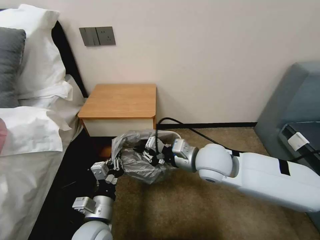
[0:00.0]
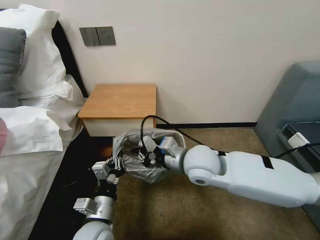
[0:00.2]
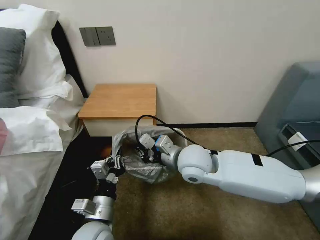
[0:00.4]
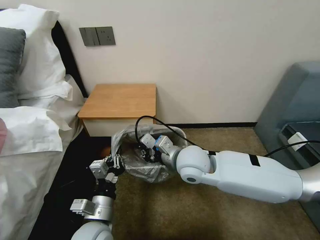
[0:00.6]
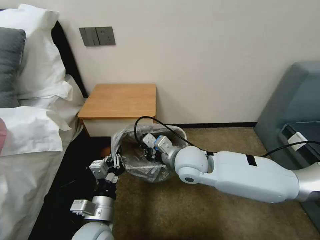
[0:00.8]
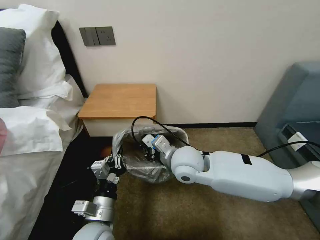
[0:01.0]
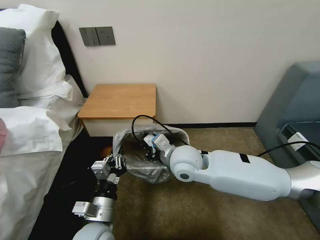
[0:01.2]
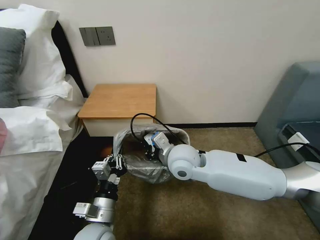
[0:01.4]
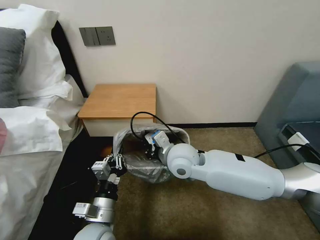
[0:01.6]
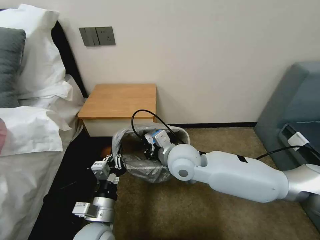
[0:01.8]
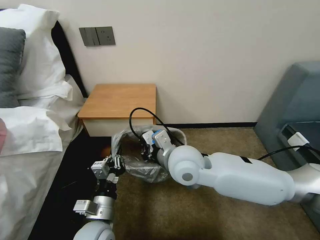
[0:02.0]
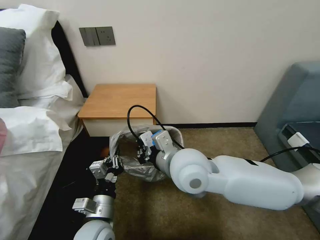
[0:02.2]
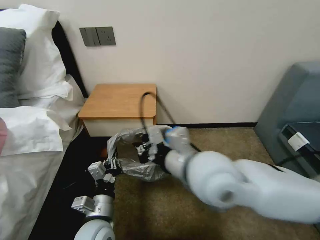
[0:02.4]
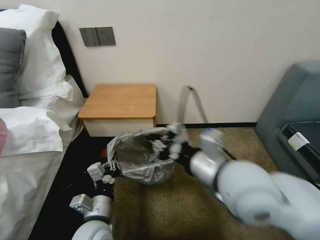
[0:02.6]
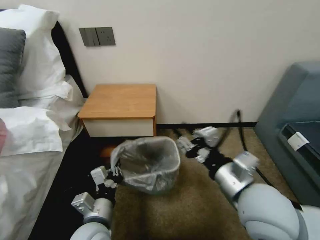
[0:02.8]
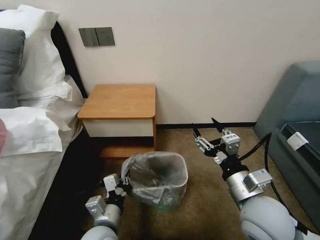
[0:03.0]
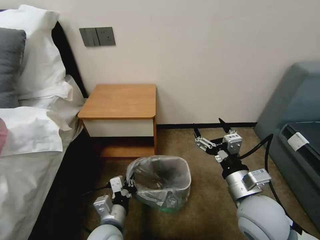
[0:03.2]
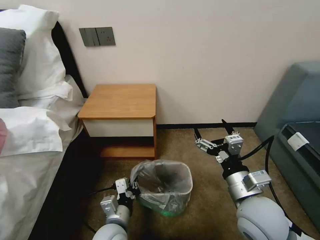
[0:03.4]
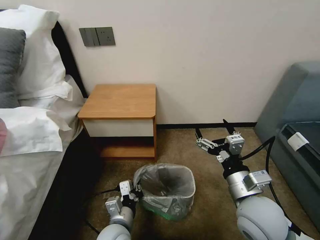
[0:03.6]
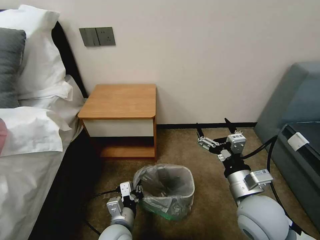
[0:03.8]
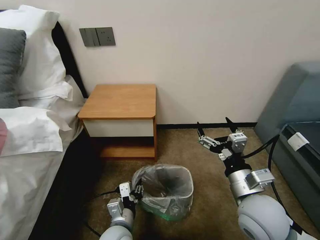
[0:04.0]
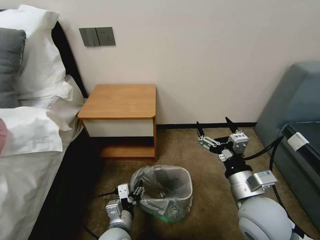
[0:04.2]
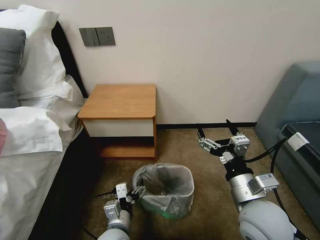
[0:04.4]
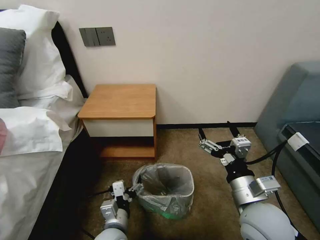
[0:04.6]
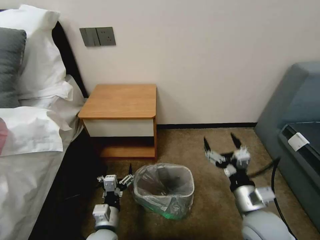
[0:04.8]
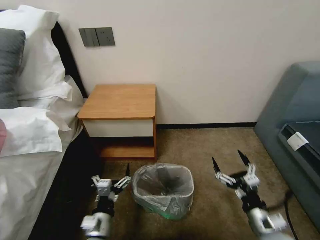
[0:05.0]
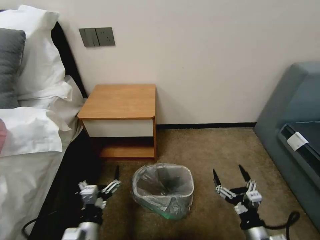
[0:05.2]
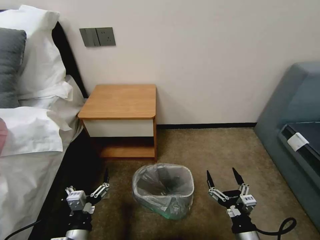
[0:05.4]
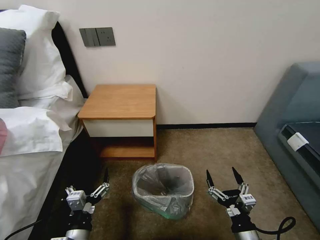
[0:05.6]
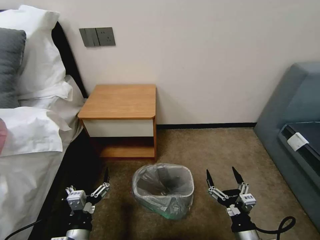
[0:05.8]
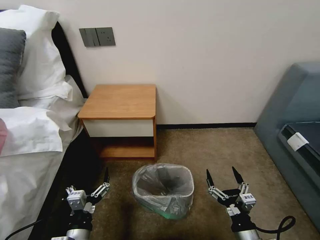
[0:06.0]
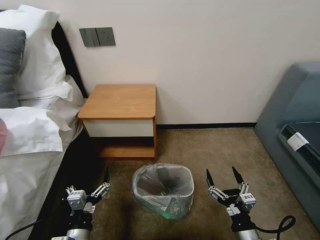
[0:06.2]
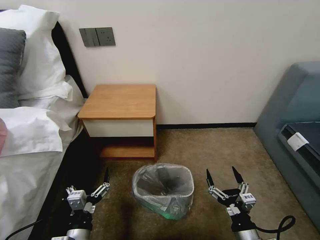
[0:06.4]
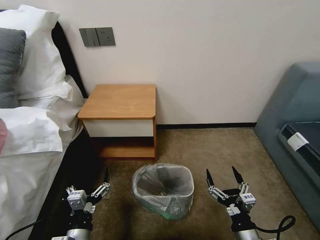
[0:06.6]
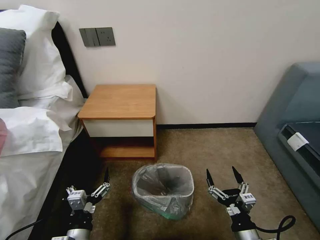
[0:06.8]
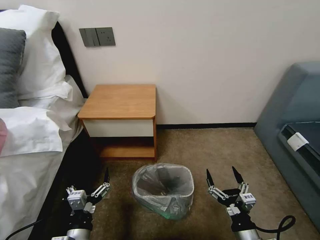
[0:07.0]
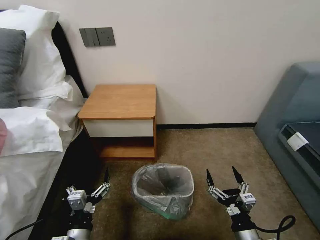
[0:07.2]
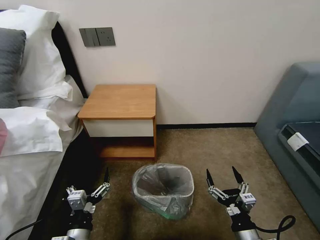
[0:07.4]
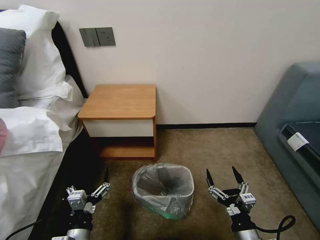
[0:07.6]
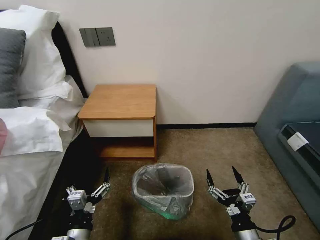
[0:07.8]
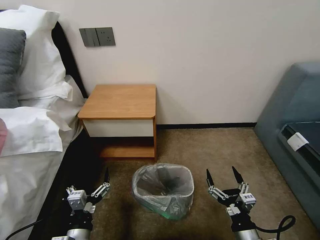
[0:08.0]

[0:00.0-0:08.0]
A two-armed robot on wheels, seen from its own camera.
Task of the whole recording: Pick up the garbage bag from the table and place it over the trash can.
0:00.0 to 0:01.6: The right gripper heads to the left, covering some 5 cm.
0:01.6 to 0:03.2: The right gripper shifts approximately 20 cm to the right and backward, and opens up.
0:03.2 to 0:04.8: The left gripper opens, while the right gripper heads downward, covering approximately 5 cm.
0:04.8 to 0:06.4: The right gripper is displaced downward and backward by about 15 cm; the left gripper moves backward and to the left, some 10 cm.
0:06.4 to 0:08.0: Both grippers stay put.

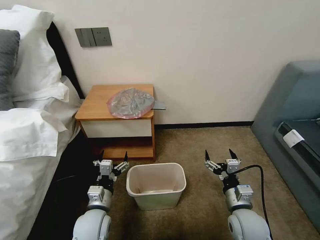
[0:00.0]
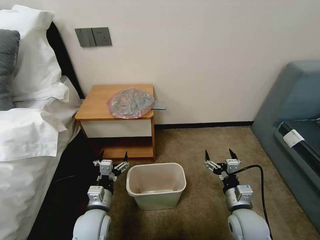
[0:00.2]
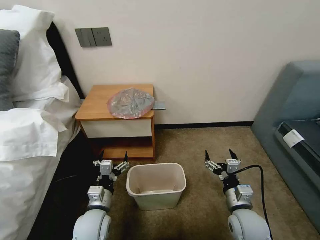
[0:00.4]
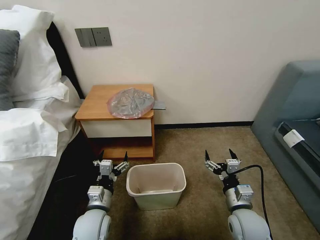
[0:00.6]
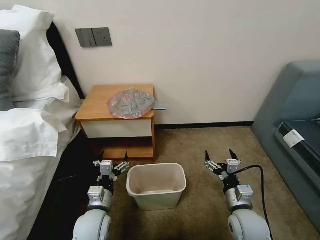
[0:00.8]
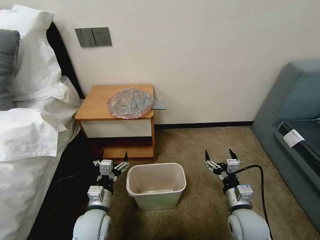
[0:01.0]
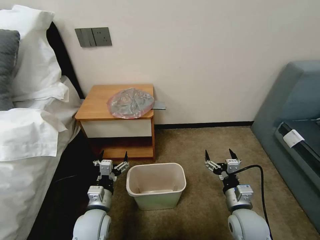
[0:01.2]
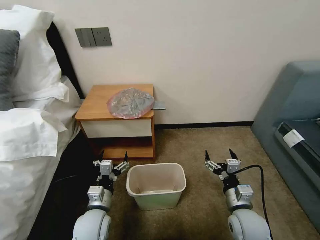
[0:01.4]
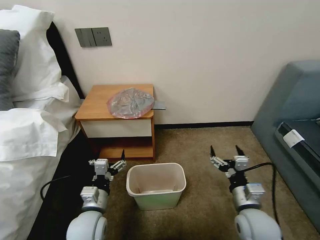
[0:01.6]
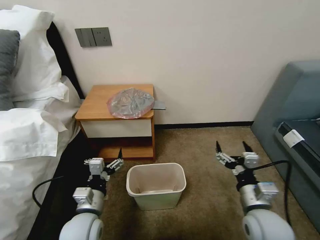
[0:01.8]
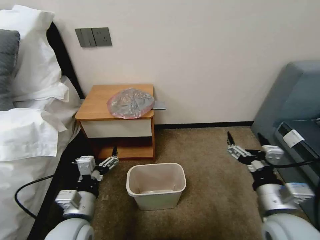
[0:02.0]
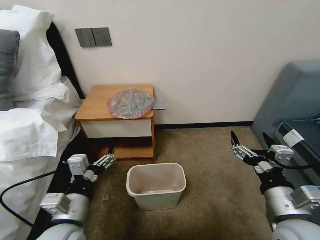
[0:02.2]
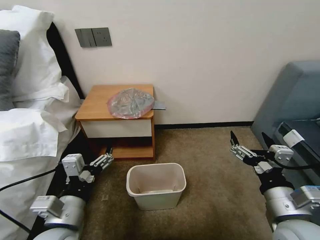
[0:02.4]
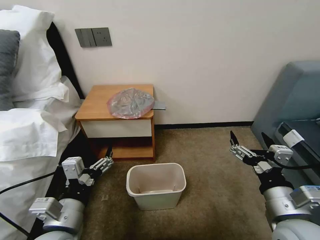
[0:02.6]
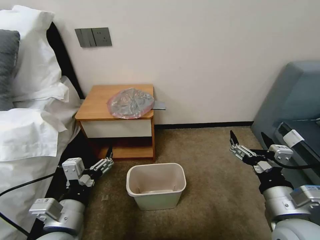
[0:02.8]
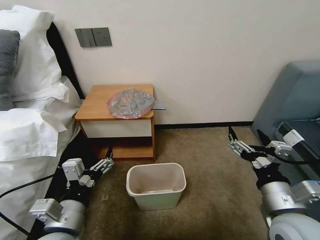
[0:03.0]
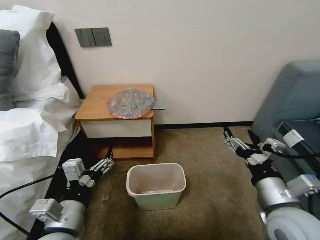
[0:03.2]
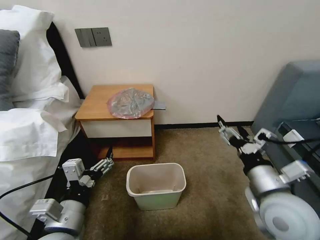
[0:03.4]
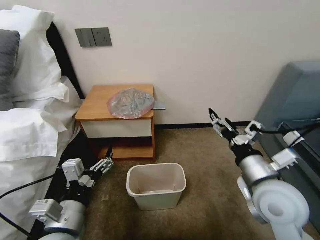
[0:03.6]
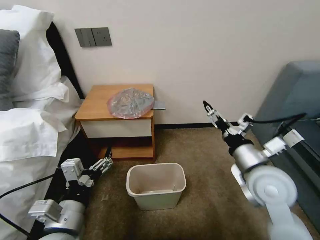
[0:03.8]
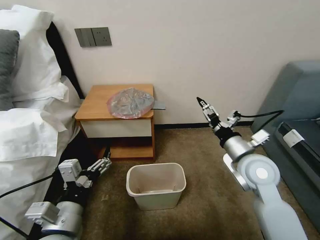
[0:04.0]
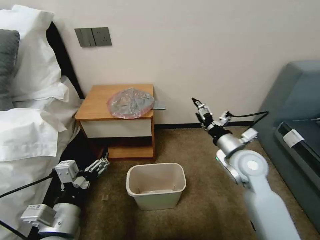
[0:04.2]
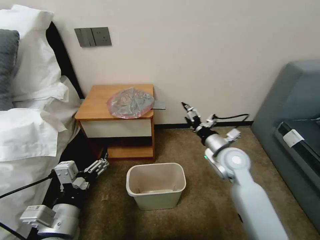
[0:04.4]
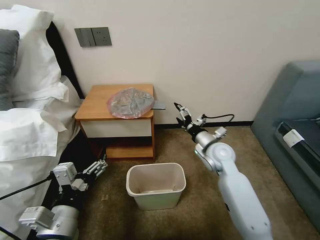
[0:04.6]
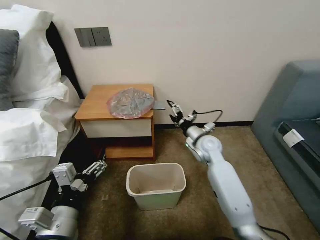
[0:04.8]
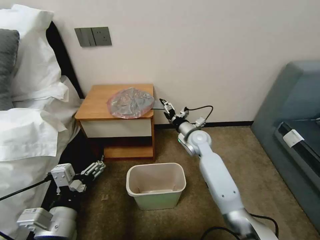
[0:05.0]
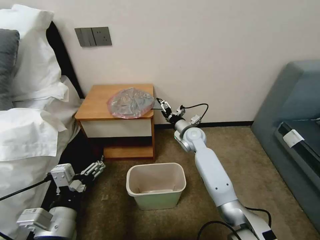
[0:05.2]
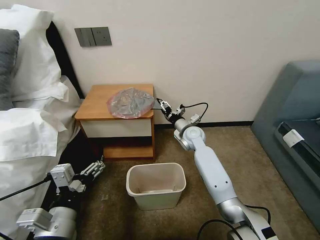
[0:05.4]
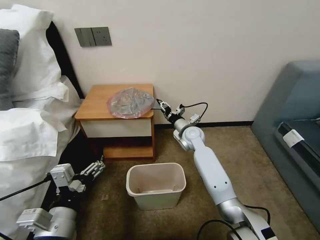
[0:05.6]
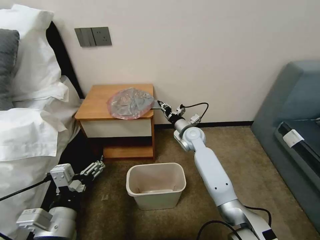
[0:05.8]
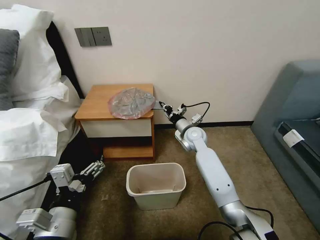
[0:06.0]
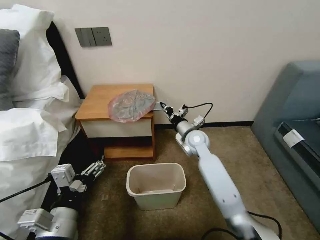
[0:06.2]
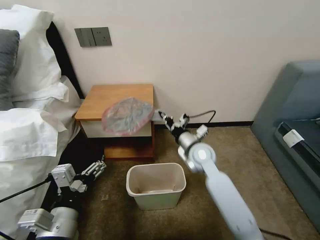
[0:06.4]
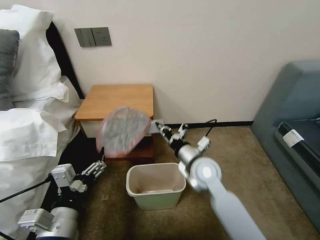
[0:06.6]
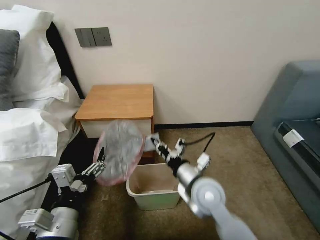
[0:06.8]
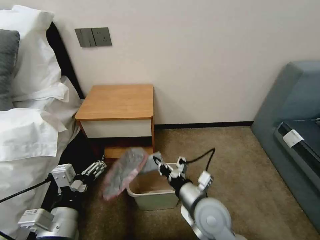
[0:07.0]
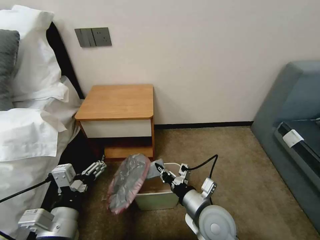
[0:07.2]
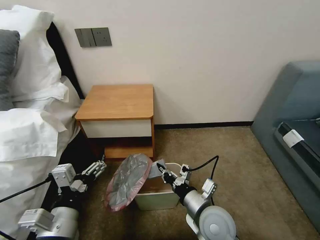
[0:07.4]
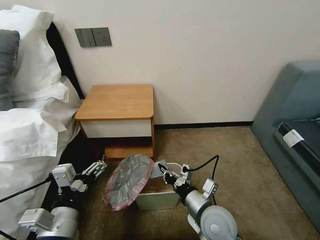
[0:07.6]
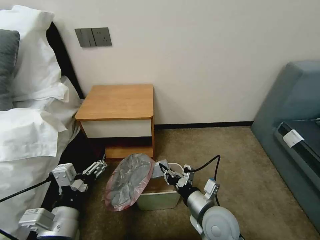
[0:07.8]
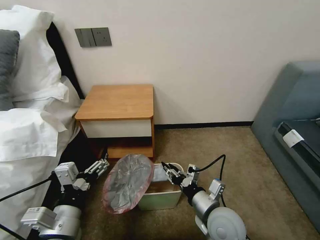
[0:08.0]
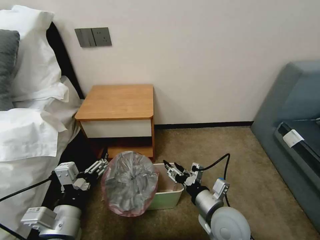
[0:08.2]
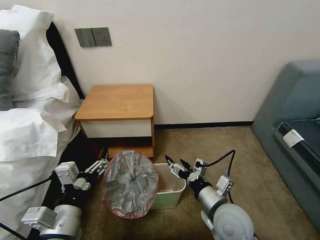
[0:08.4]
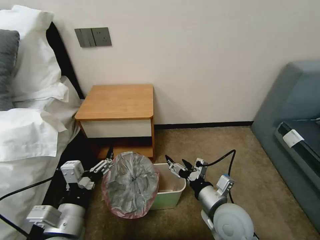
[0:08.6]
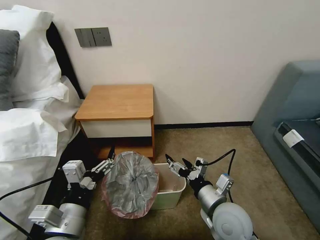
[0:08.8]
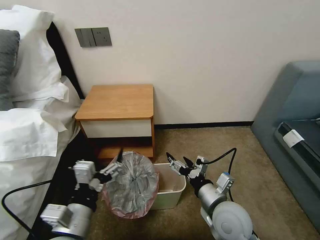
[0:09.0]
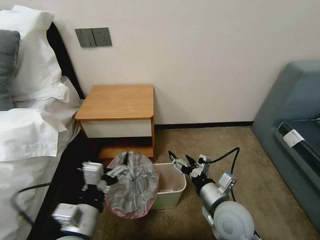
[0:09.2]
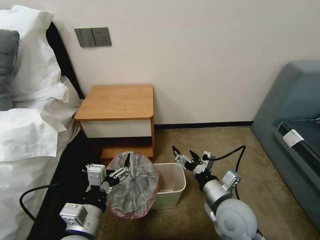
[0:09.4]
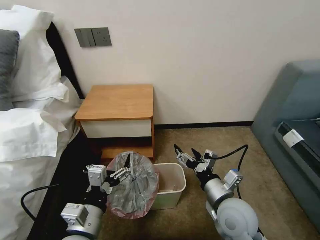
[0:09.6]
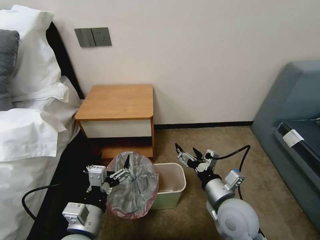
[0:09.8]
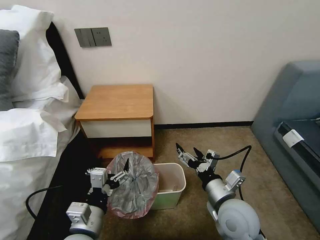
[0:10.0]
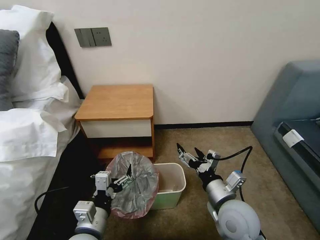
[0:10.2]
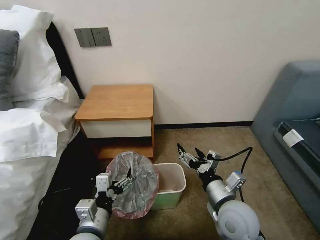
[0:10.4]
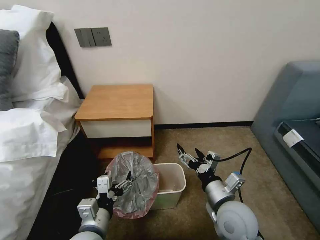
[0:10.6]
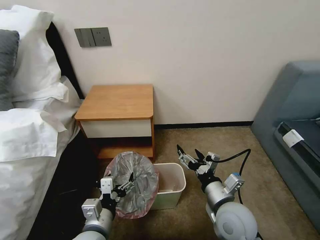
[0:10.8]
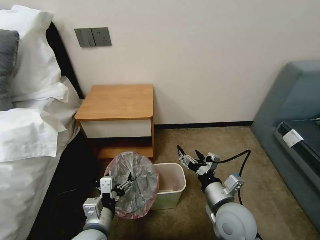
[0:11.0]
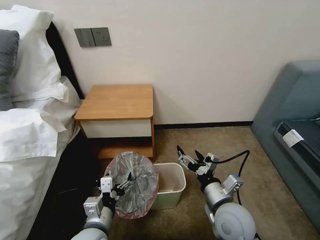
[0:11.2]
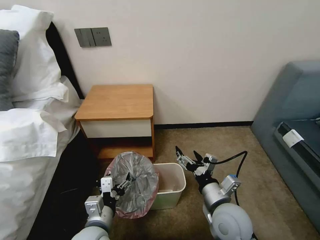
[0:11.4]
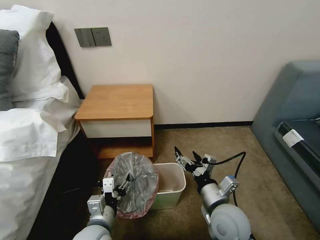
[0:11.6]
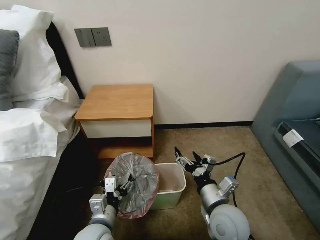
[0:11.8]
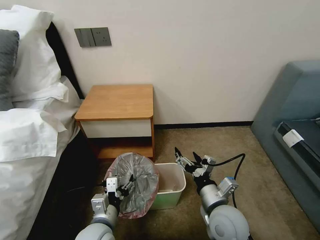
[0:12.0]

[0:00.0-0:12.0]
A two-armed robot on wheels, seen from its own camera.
Task of the whole recording: Pick up the garbage bag from the table and place it over the trash can.
0:01.6 to 0:03.0: The right gripper moves upward, roughly 10 cm, while the left gripper goes about 15 cm upward and backward.
0:03.0 to 0:04.4: The right gripper is displaced forward by some 20 cm.
0:04.4 to 0:06.0: The right gripper goes about 15 cm forward and to the left, and closes.
0:06.0 to 0:07.6: The right gripper is displaced backward by approximately 30 cm.
0:07.6 to 0:09.0: The right gripper opens.
0:09.0 to 0:10.4: The left gripper moves downward, approximately 5 cm.
0:10.4 to 0:12.0: The left gripper ends up approximately 5 cm from where it was.

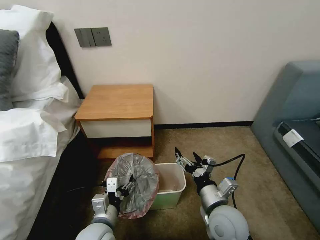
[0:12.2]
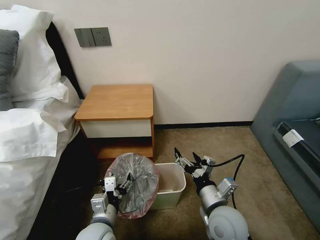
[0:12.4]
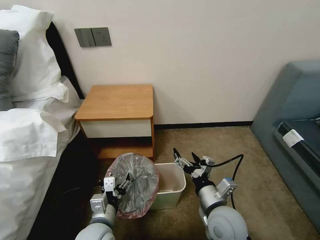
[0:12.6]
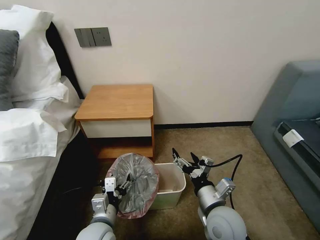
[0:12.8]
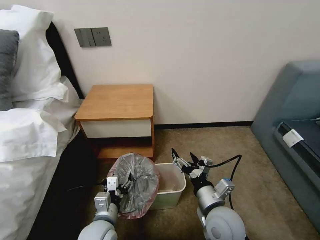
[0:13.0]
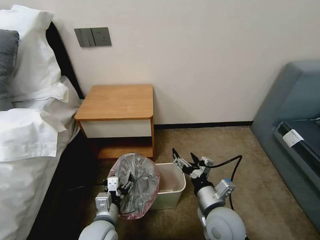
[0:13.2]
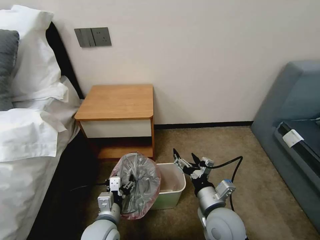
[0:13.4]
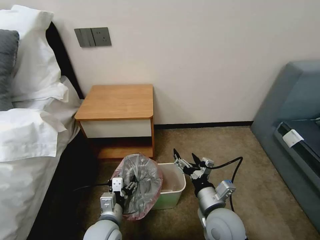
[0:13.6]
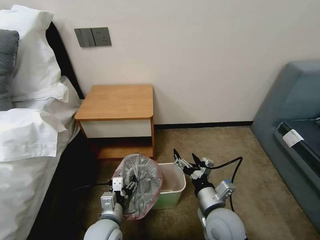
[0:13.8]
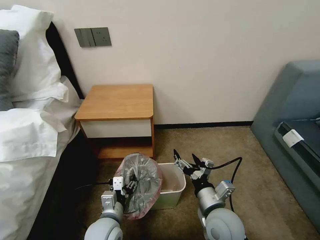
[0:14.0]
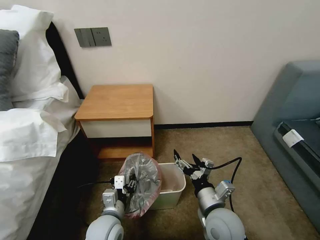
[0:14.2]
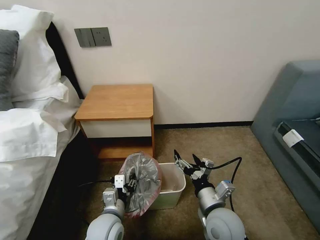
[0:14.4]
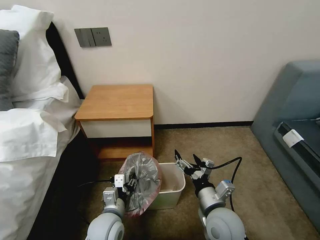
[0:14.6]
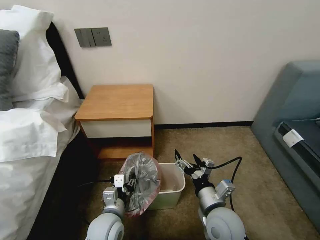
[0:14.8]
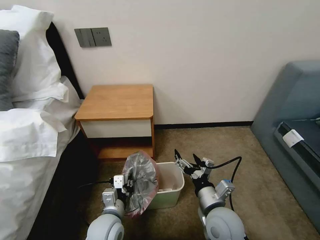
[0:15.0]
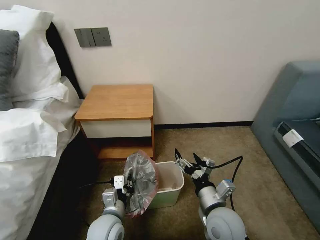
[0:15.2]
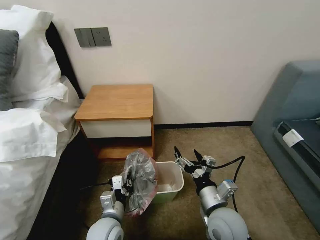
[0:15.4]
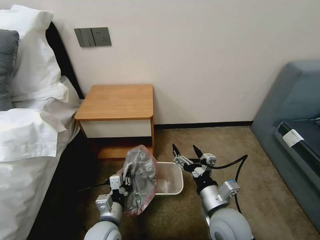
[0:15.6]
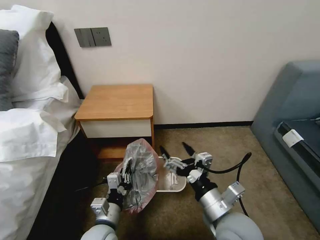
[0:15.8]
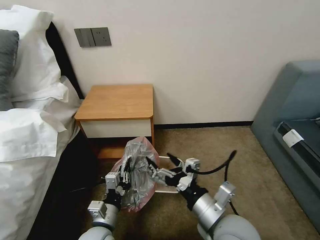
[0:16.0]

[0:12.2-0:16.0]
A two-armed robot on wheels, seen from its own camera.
Task of the whole recording: Pick up the garbage bag from the table and place it over the trash can.
0:12.2 to 0:14.8: The grippers move only a little.
0:14.8 to 0:16.0: The left gripper closes, while the right gripper shifts approximately 10 cm upward.
